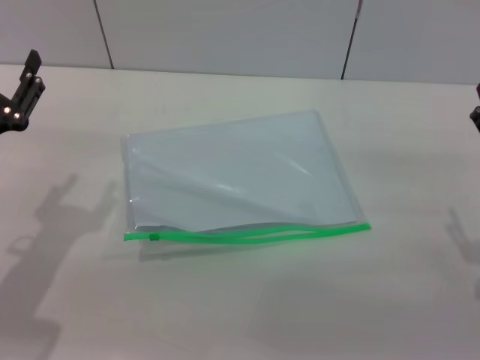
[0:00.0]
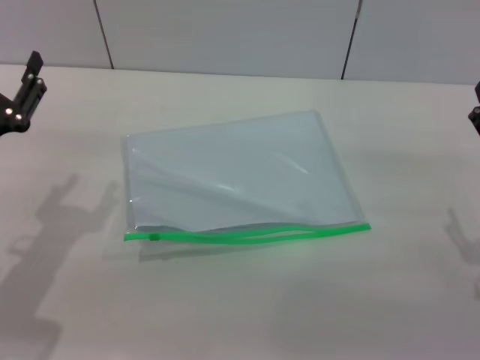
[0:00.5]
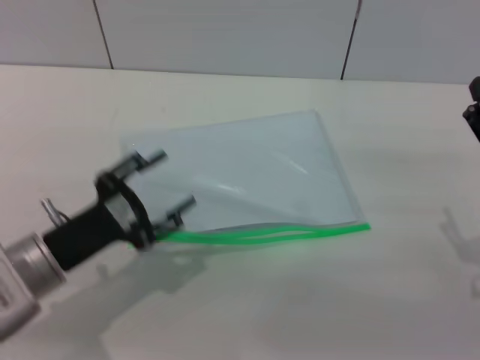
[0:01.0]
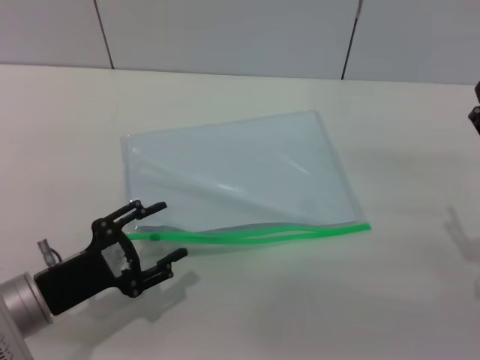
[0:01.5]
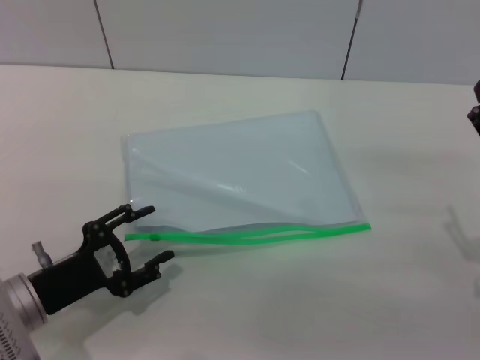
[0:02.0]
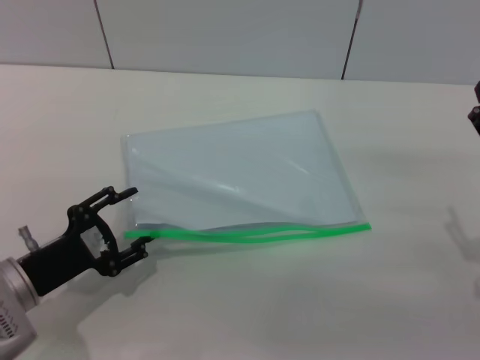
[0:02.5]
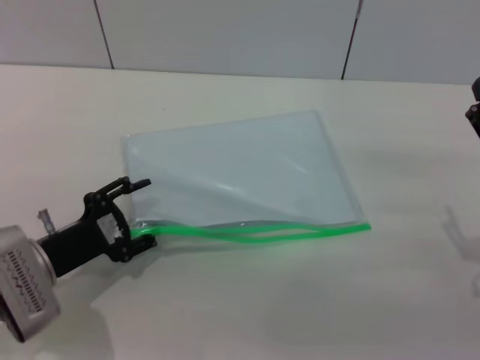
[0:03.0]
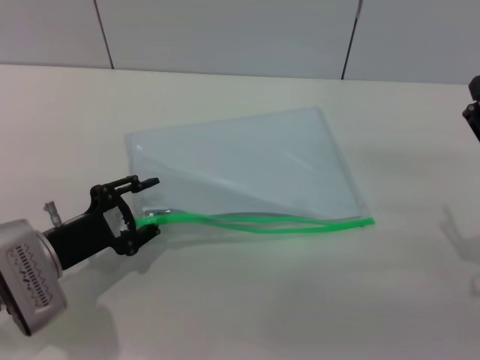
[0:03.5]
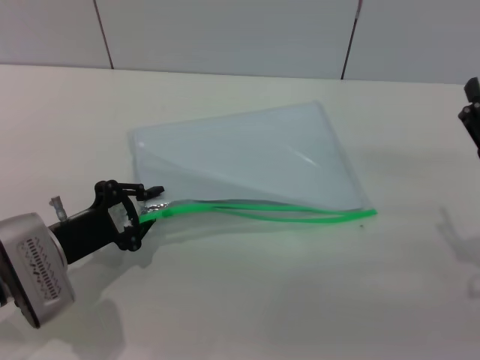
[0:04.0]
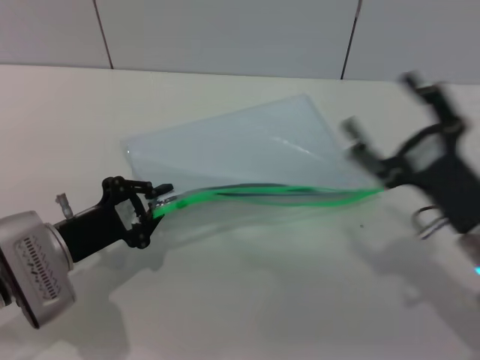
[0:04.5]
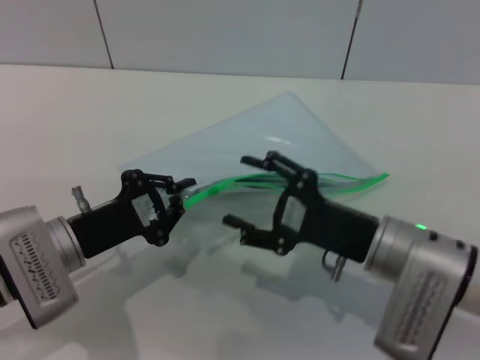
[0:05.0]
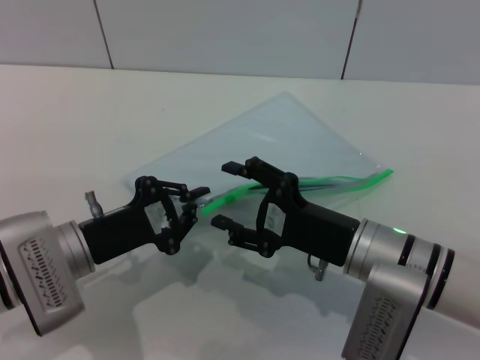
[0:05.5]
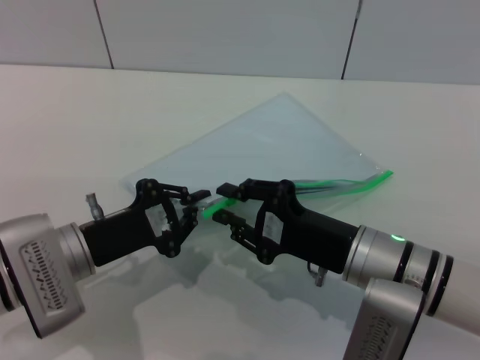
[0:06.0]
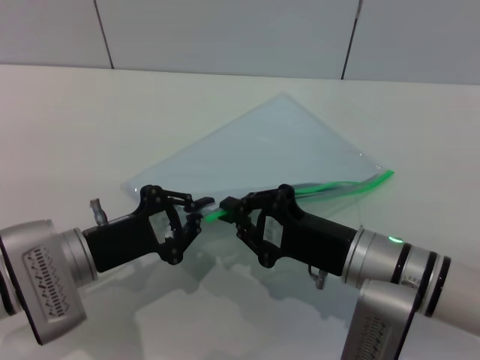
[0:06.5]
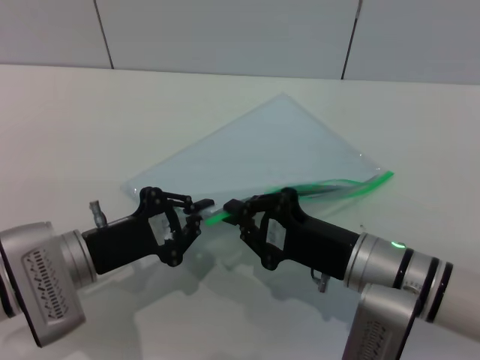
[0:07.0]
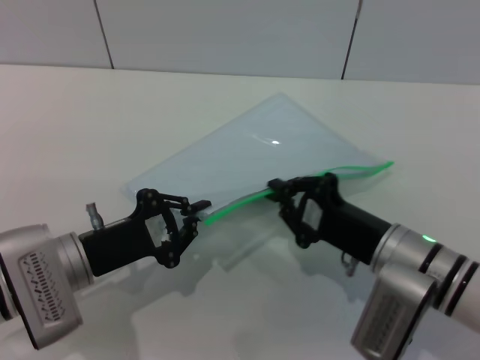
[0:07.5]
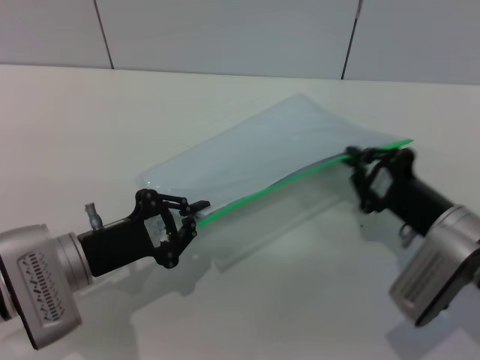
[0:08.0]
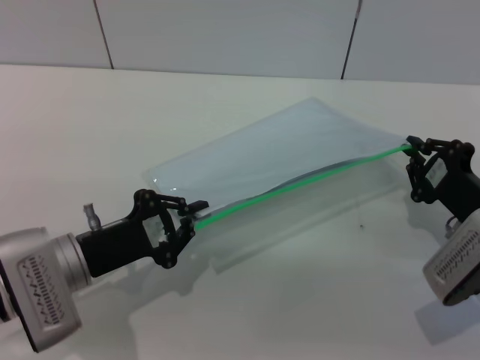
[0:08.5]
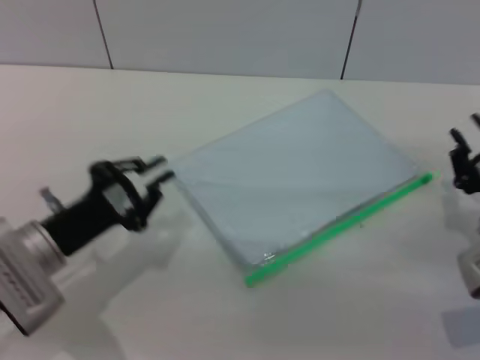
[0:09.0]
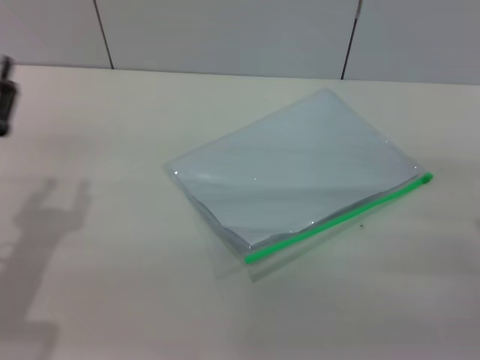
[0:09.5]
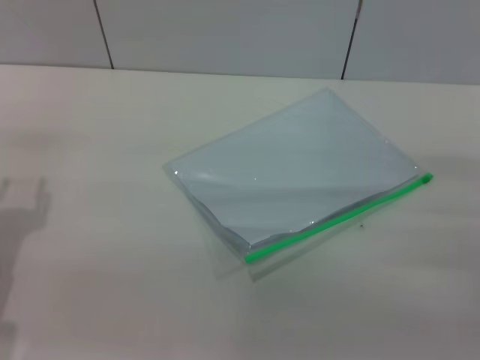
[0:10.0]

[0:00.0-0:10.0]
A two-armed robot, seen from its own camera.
Step, 0:00.0 to 0:04.5: Pick up the transparent plastic bag with the left gripper.
Step, 0:05.0 to 0:08.5: Pulling up the zipper on the transparent plastic bag with the right gripper to close it.
0:00.0 to 0:02.0: The left gripper travels downward by about 5 cm.
0:02.0 to 0:04.0: The left gripper shifts some 5 cm forward, and closes its fingers.
0:04.0 to 0:06.0: The right gripper goes roughly 15 cm to the left, and closes up; the left gripper closes.
0:06.0 to 0:08.0: The right gripper is displaced to the right by about 10 cm, and closes up.
0:08.0 to 0:10.0: The right gripper heads to the right, covering about 10 cm, and opens. Meanwhile the left gripper moves to the left, about 10 cm, and opens.
